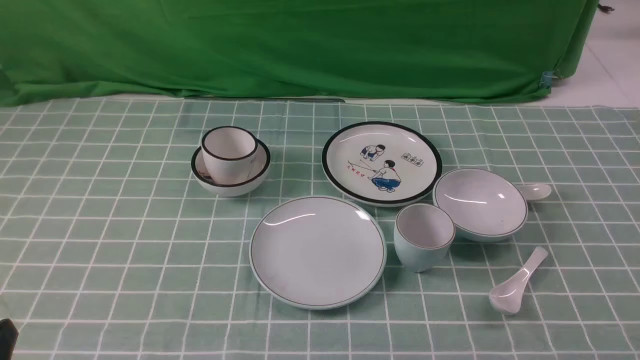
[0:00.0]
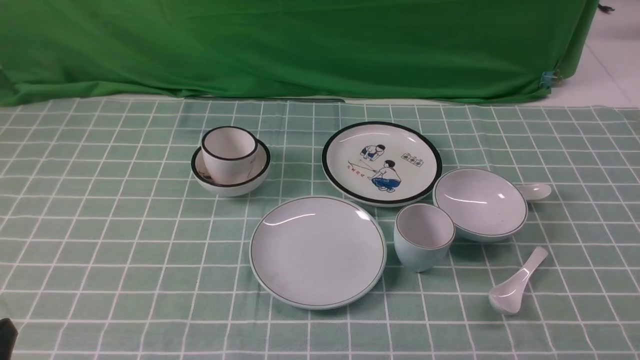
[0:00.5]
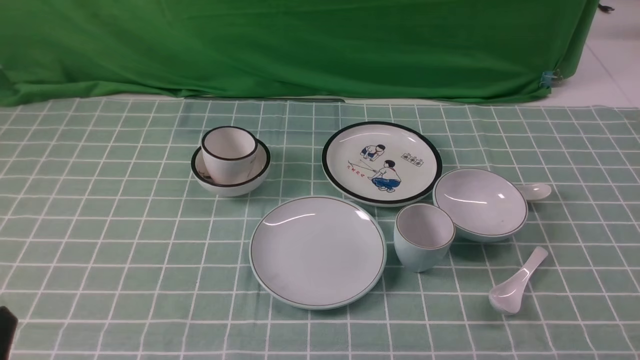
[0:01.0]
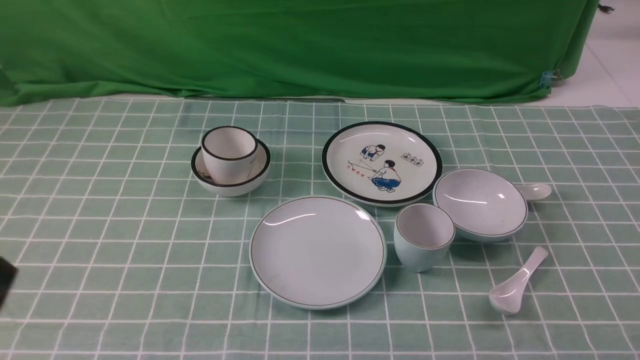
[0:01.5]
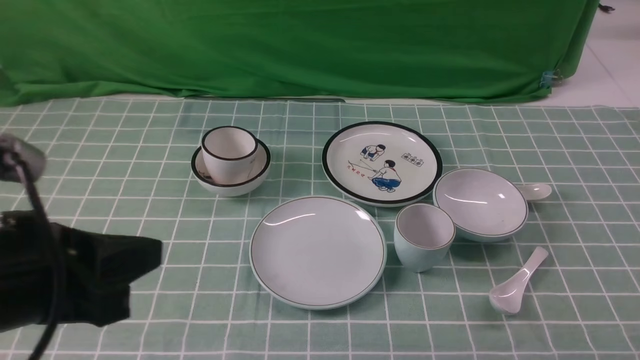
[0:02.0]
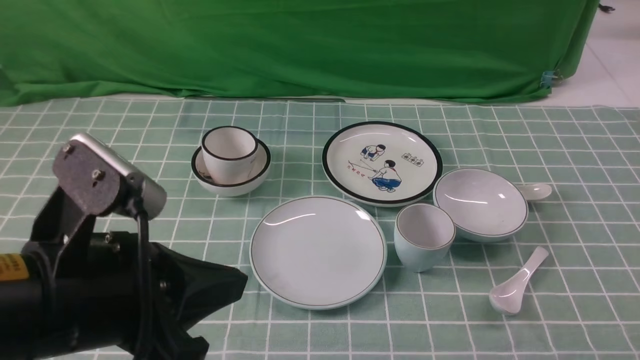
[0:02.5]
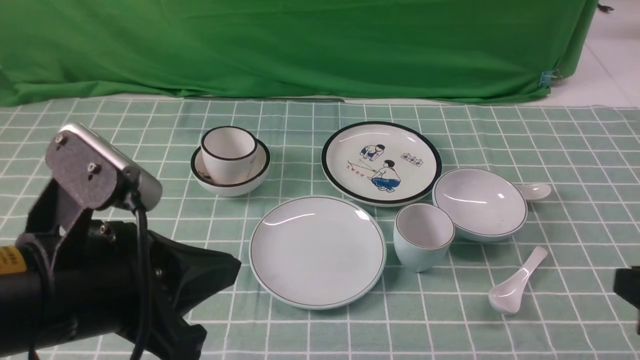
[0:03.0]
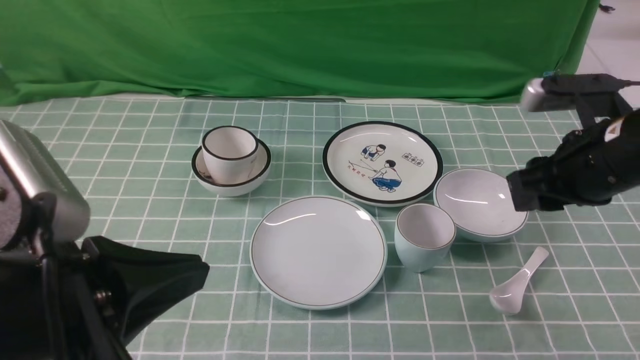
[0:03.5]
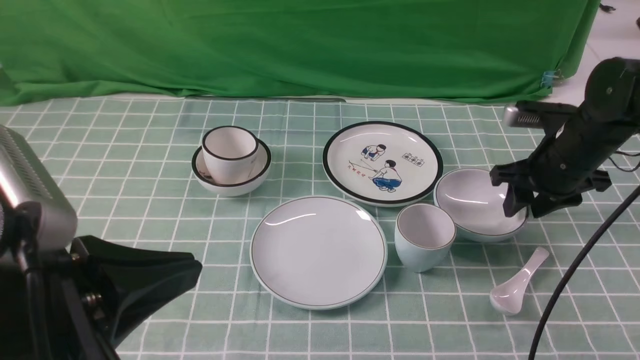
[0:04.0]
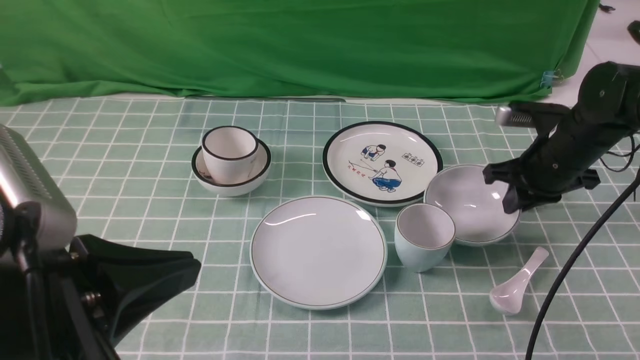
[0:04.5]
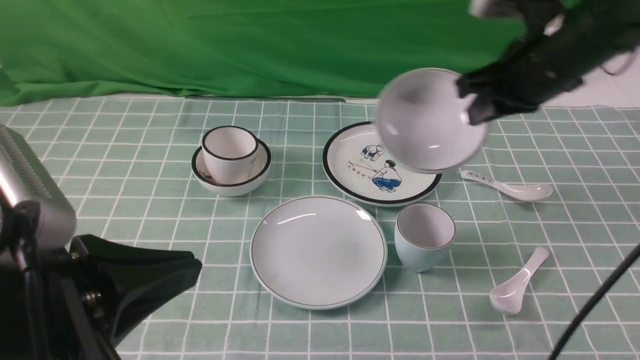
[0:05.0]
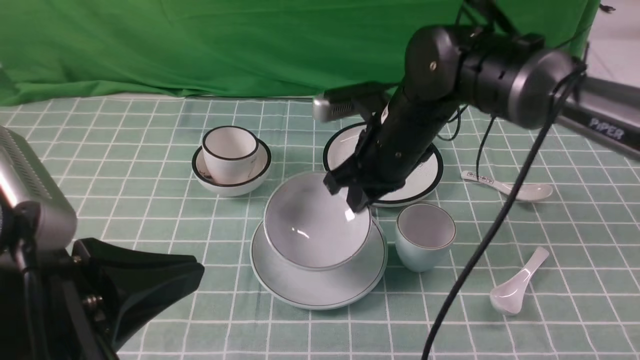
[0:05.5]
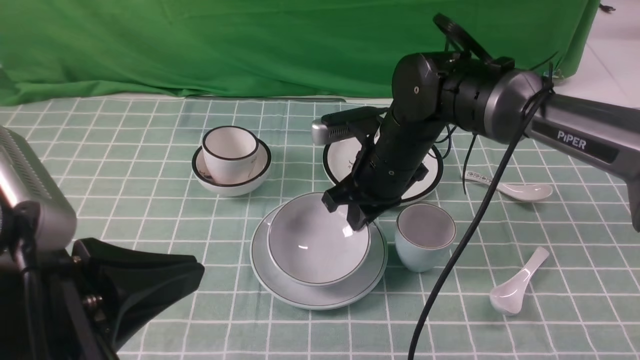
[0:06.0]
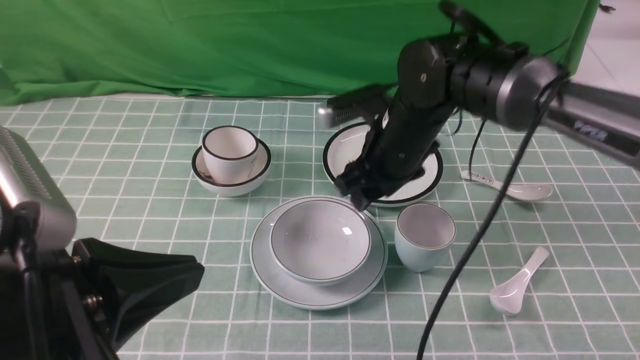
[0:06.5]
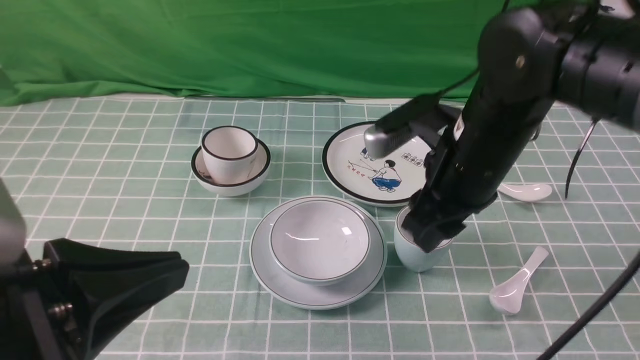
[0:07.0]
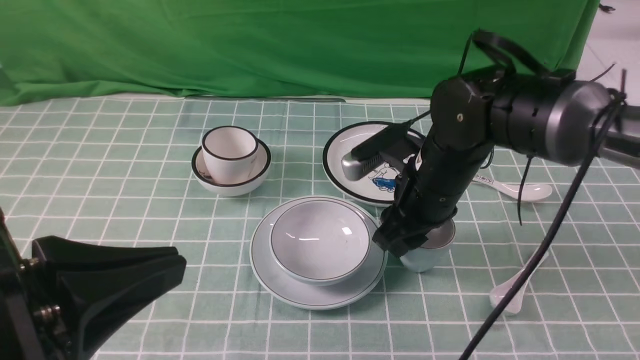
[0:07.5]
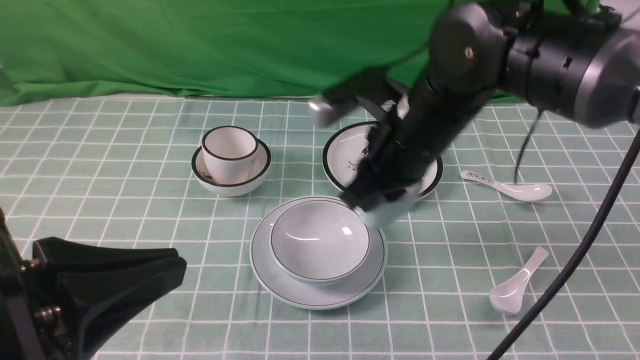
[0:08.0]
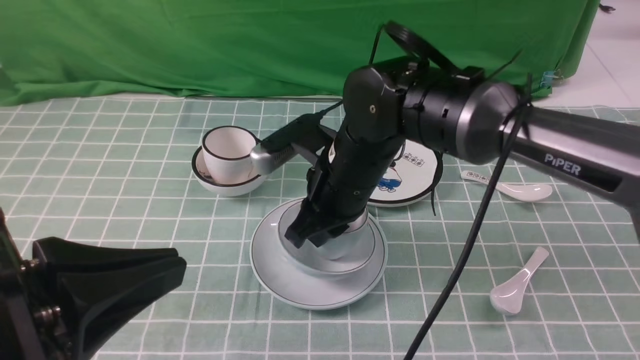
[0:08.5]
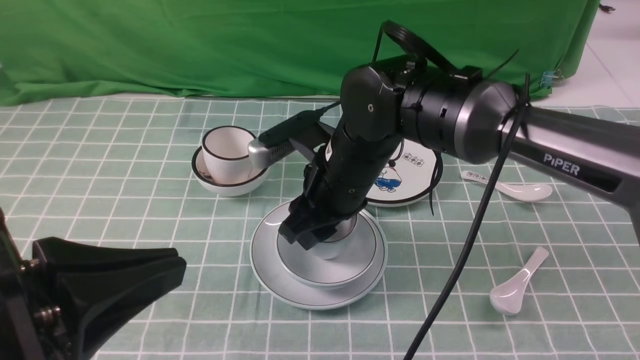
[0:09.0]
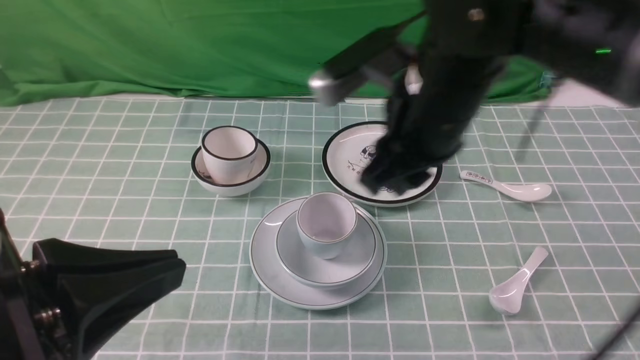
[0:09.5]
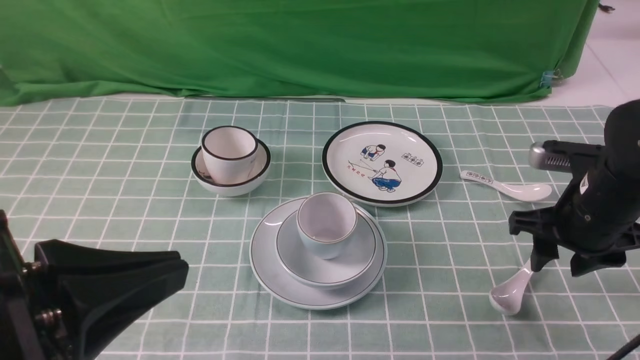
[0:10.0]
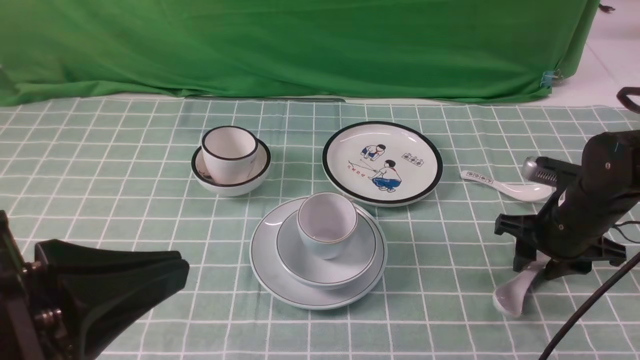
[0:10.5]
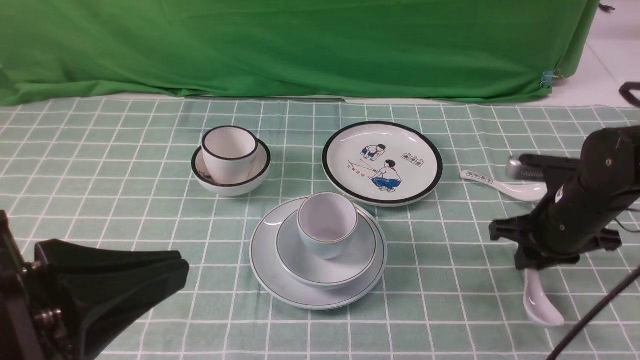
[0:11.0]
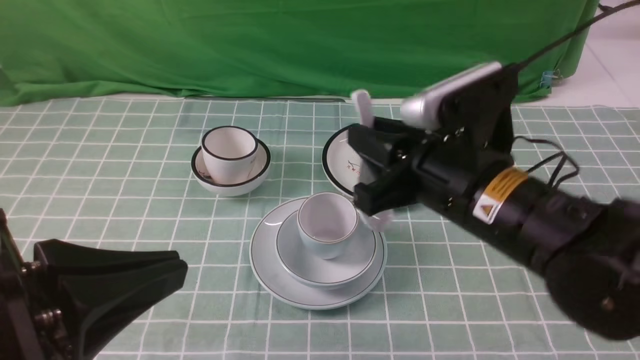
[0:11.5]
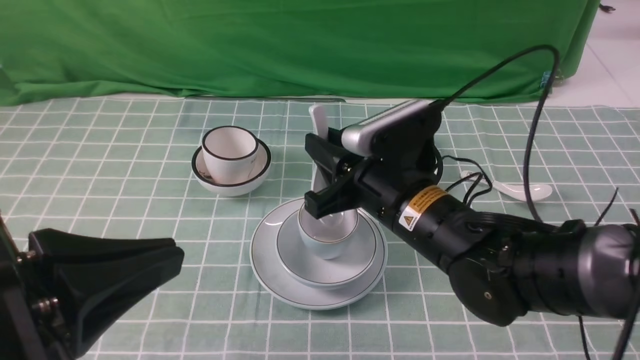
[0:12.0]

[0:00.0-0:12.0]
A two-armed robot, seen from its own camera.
Task of the whole recording: place the bowls on the plates on the blue tablecloth, put the cups on the bowls, and place the spoons in the cups.
Step, 0:00.0 to 0:04.0: Grasp the bowl with the right gripper.
Step, 0:04.5 to 0:06.0: Place the bowl on the plate with the right gripper.
Step, 0:06.5 to 0:07.5: Grasp the cup with the right gripper.
Step, 0:08.0 to 0:09.0: Place the cup on the bowl with the right gripper.
Step, 0:09.5 to 0:10.5: Grasp the spoon with the right gripper.
0:02.0 to 0:04.0: The right gripper is displaced forward by some 35 cm.
0:04.0 to 0:06.0: The right gripper moves to the left, about 20 cm, and closes up.
0:06.0 to 0:08.0: The right gripper is displaced backward and upward by some 5 cm, and opens and closes again.
0:08.0 to 0:10.0: The right gripper moves to the right, about 15 cm, and opens.
0:10.0 to 0:12.0: The right gripper heads to the left, covering about 15 cm, and closes its fingers.

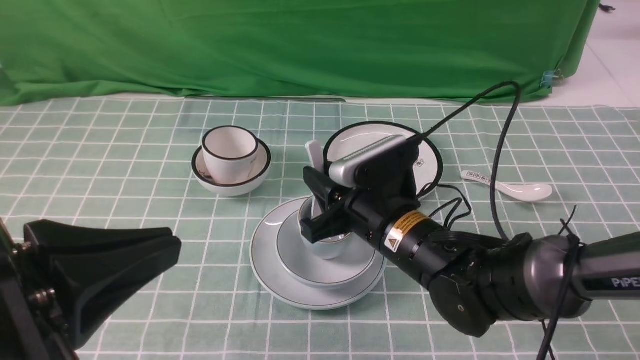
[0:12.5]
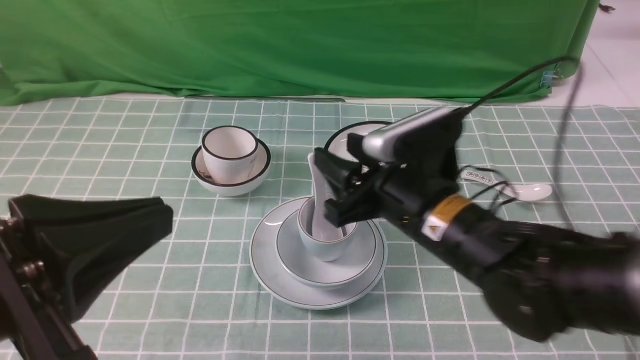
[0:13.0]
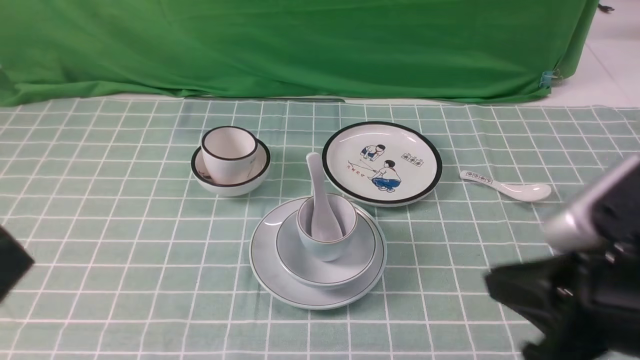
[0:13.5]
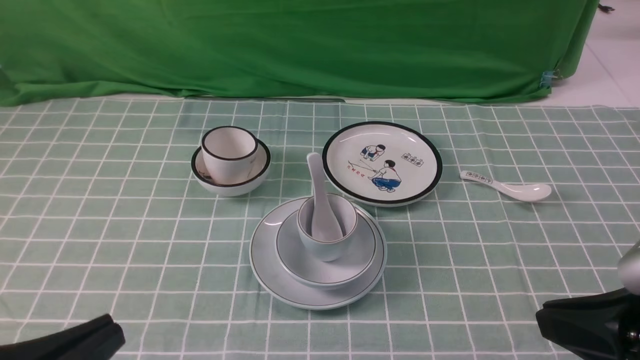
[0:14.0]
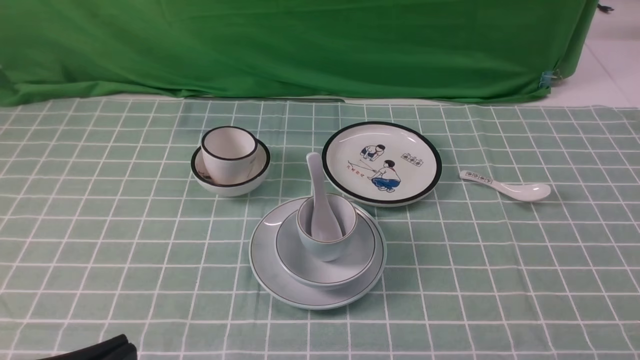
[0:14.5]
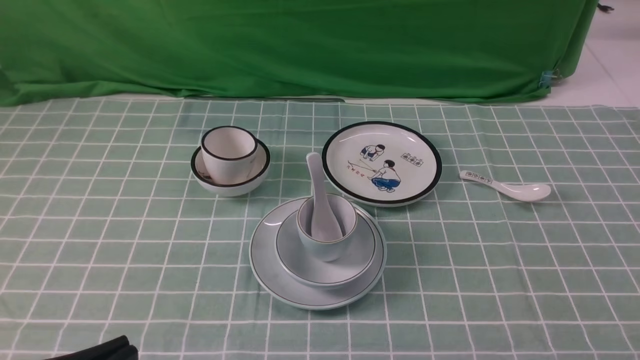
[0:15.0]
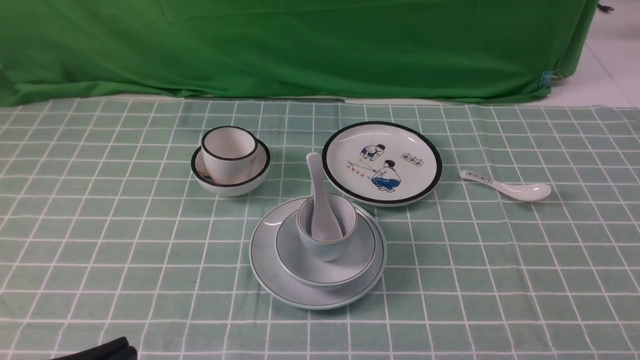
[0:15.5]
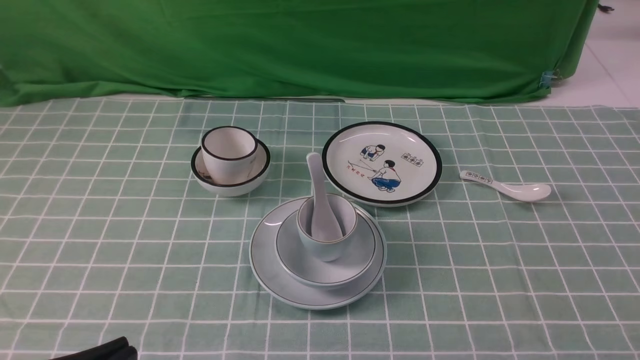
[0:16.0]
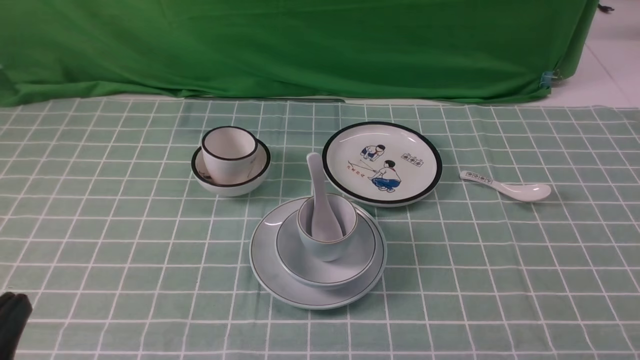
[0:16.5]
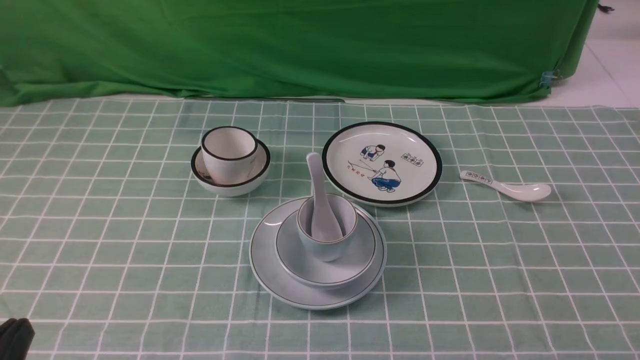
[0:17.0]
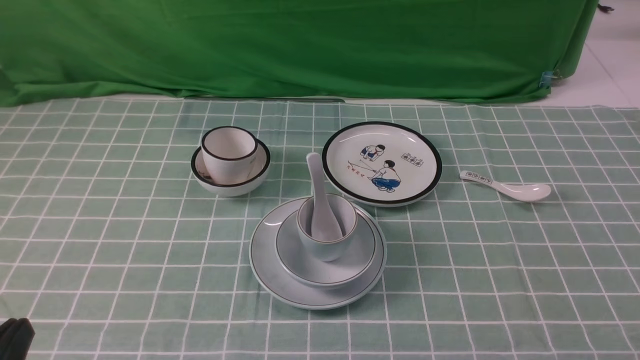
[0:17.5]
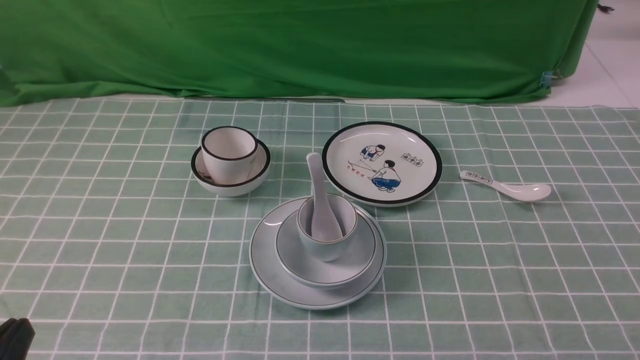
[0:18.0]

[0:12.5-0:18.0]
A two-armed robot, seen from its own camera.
Task of the whole recording: place the bowls on the plates on the blue tablecloth, put the cups on the bowls, and place the spoons in the cups.
0:12.5 to 0:14.5: The left gripper shifts some 10 cm downward. The right gripper shifts roughly 30 cm to the right, backward and upward, and closes its fingers.
0:16.0 to 0:18.0: The left gripper travels downward by roughly 5 cm.
